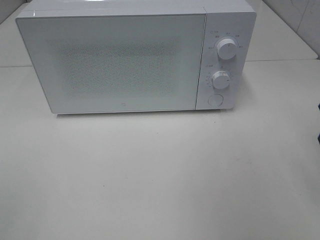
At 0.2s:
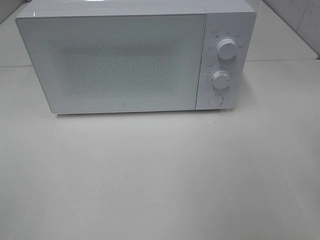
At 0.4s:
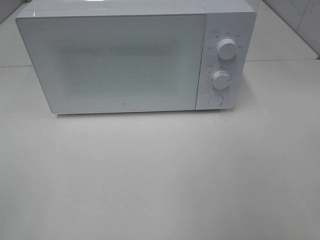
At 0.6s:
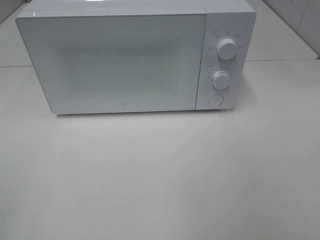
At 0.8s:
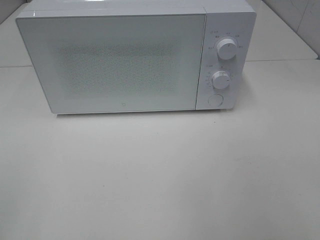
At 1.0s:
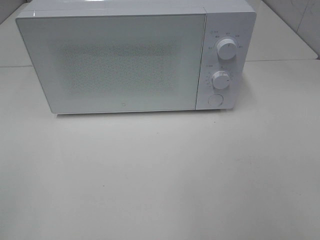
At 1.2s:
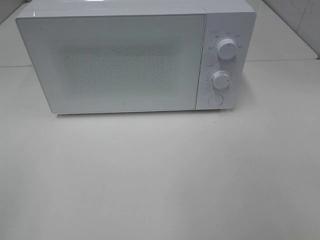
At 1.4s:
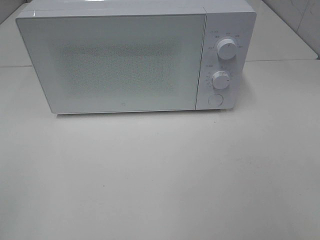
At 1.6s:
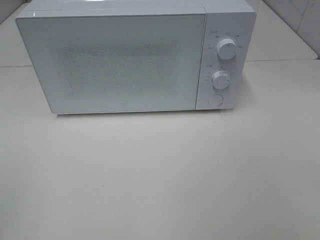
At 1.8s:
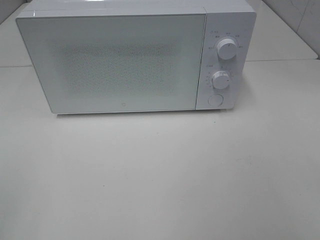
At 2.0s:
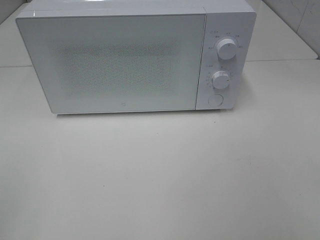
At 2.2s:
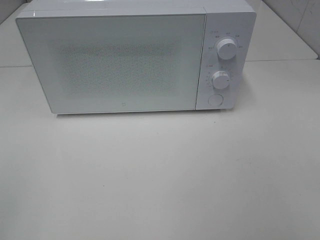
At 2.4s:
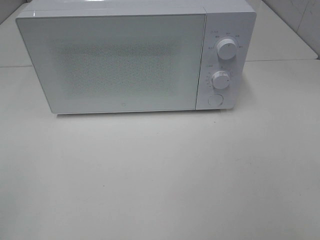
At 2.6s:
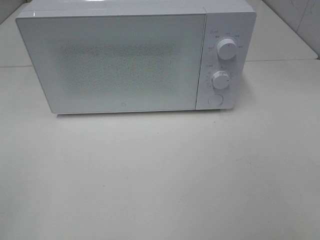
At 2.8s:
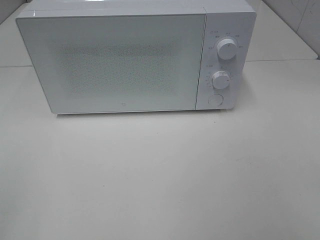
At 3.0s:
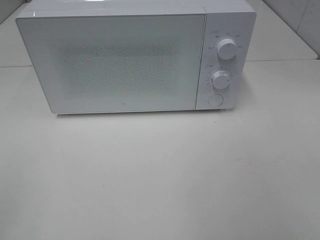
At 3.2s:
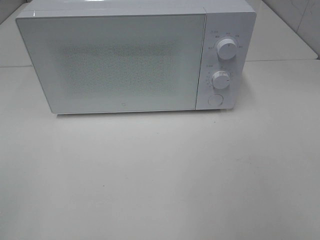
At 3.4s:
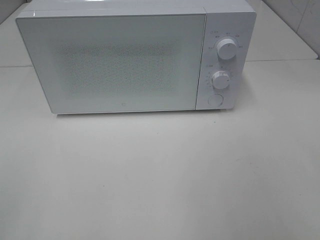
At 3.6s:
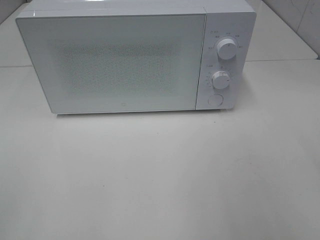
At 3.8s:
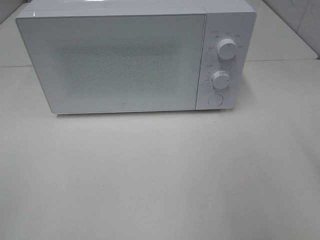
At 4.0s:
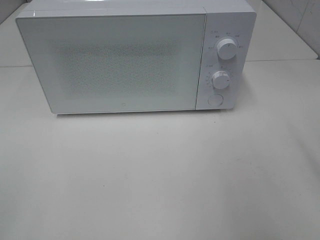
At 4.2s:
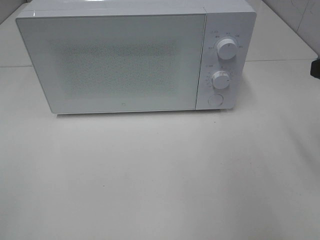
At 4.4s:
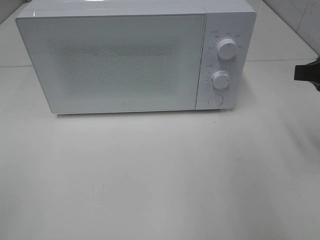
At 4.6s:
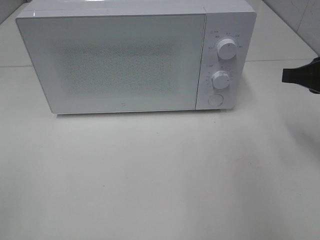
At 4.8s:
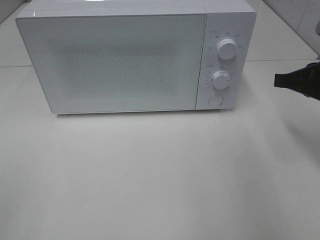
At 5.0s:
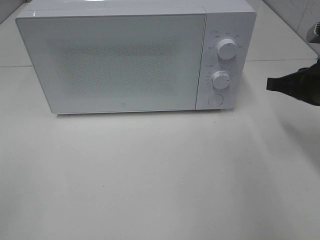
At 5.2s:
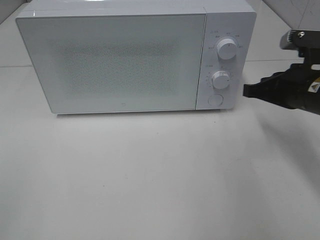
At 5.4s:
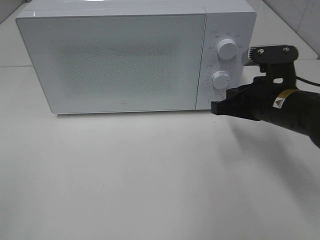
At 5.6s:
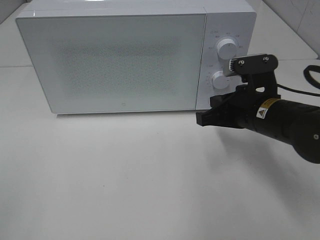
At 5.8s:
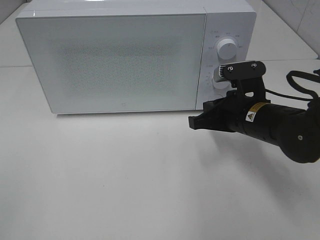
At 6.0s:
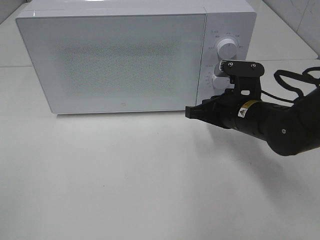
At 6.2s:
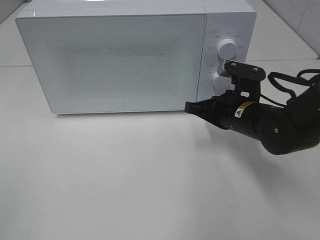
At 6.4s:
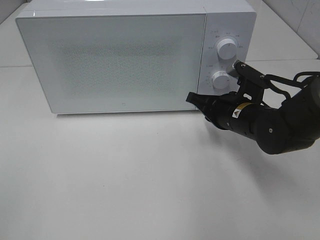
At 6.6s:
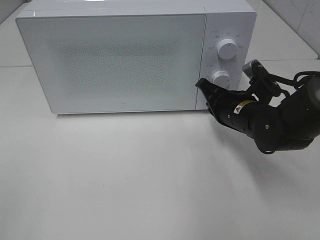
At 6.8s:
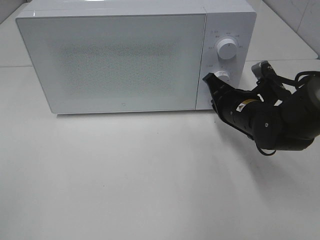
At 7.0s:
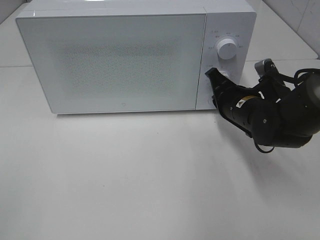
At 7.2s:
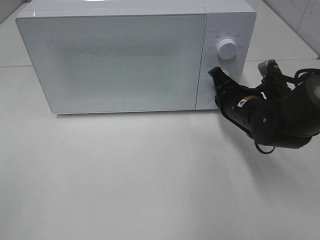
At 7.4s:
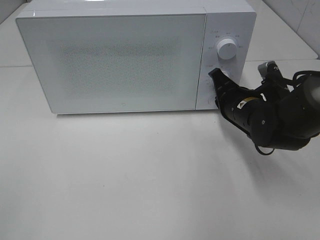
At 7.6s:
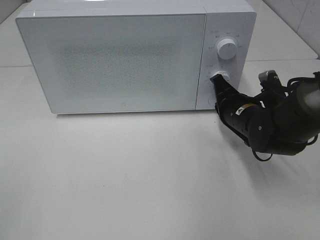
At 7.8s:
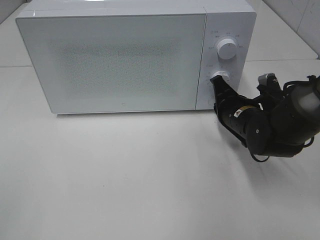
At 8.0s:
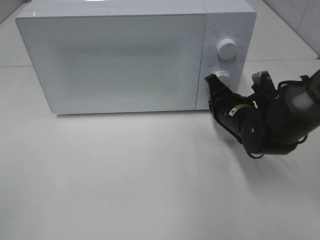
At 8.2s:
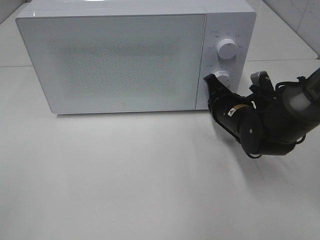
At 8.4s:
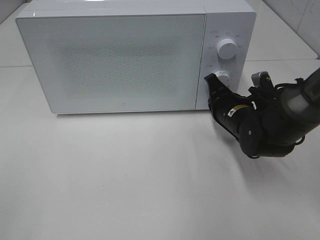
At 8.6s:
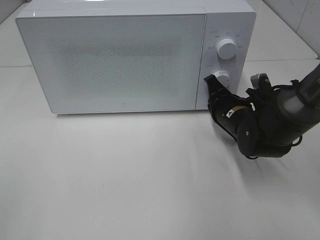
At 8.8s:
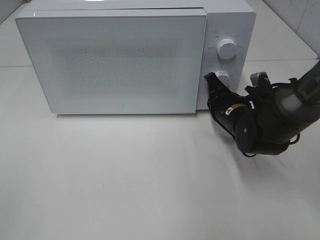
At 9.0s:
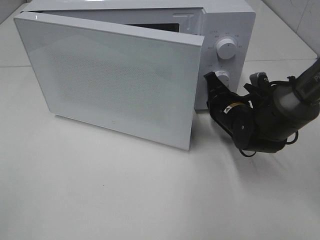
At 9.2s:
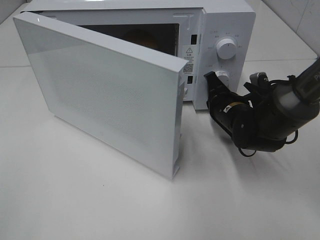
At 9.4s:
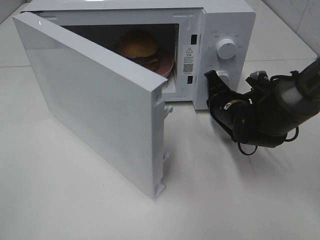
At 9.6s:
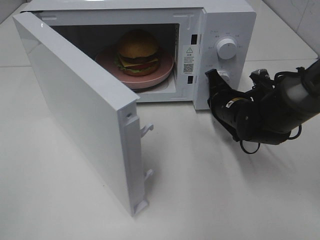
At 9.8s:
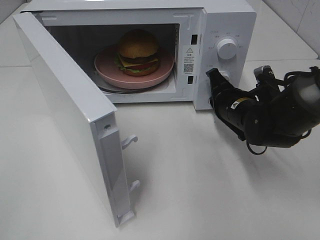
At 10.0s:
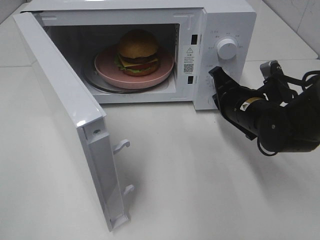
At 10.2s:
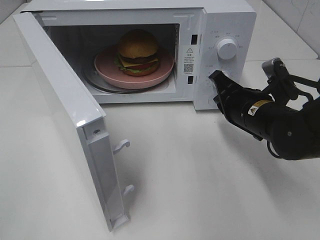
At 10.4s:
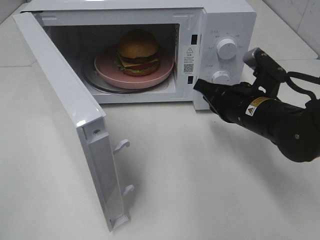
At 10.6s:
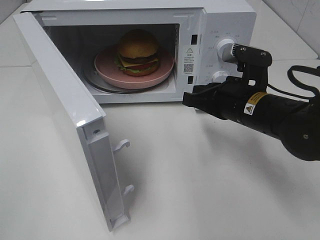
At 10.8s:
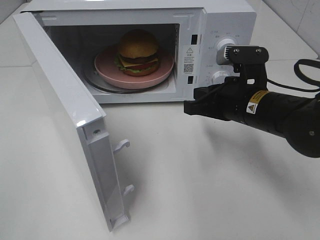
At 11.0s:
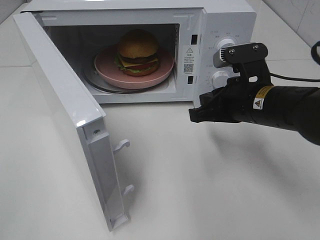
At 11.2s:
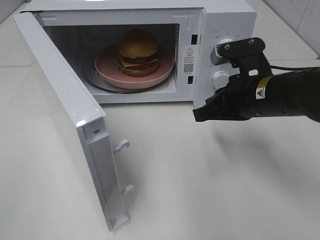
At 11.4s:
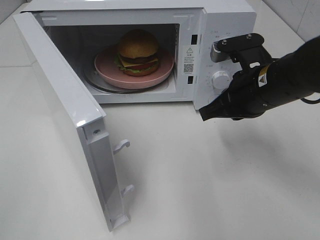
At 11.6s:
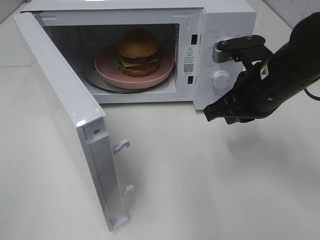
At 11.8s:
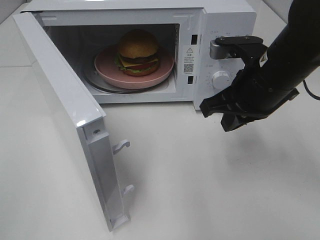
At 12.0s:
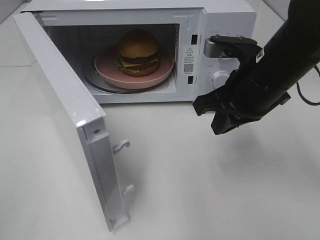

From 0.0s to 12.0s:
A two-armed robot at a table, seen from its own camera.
Task of the whole recording: Heat the burger.
Step, from 0.0s to 9.8s: Right hand: press the switch.
From 3.0s to 4.4s: The right gripper goes roughly 25 cm forward, and closes.
From 4.4s to 6.0s: The right gripper moves downward, to the left and forward, about 20 cm, and closes up.
From 7.6s to 9.0s: The grippers stay close to where they were, moving slightly.
From 9.0s to 10.4s: The right gripper moves backward and upward, approximately 10 cm.
From 10.4s to 12.0s: The right gripper moves upward, roughly 10 cm.

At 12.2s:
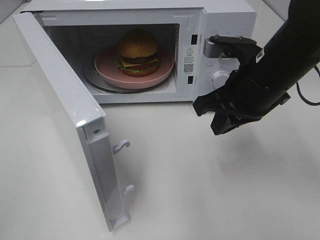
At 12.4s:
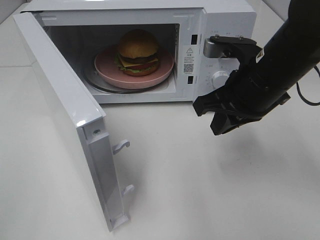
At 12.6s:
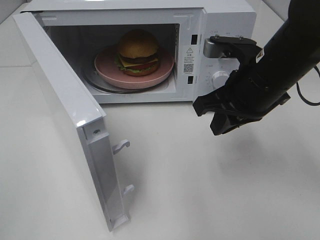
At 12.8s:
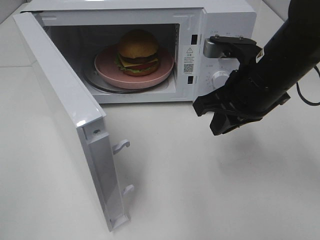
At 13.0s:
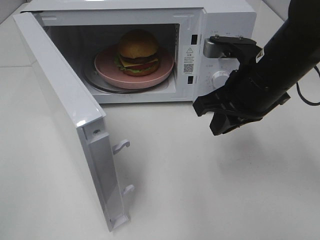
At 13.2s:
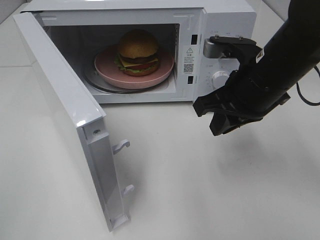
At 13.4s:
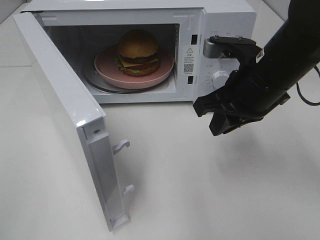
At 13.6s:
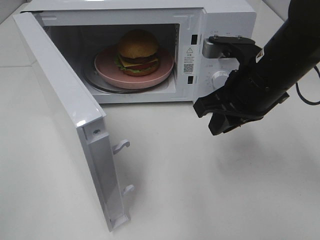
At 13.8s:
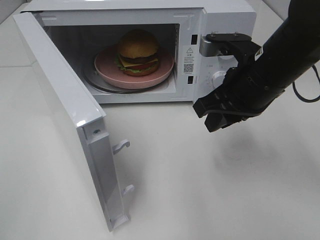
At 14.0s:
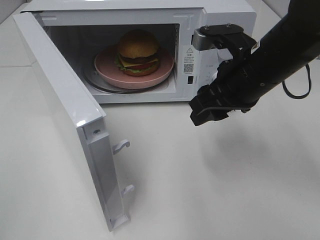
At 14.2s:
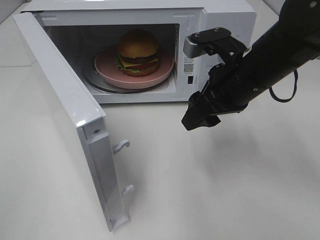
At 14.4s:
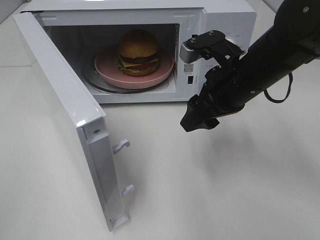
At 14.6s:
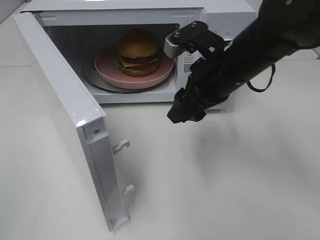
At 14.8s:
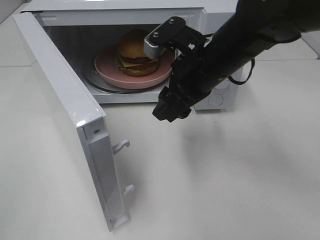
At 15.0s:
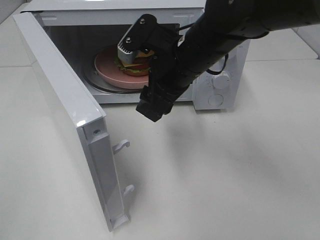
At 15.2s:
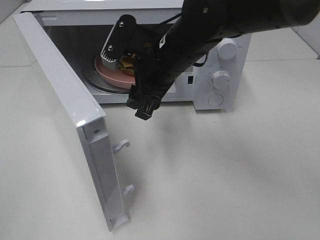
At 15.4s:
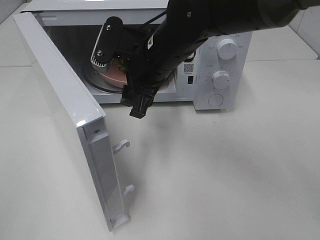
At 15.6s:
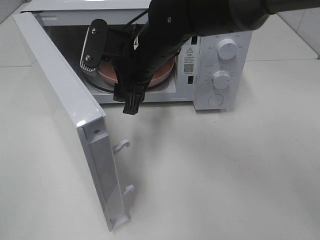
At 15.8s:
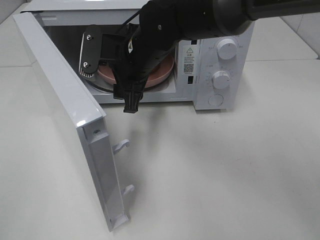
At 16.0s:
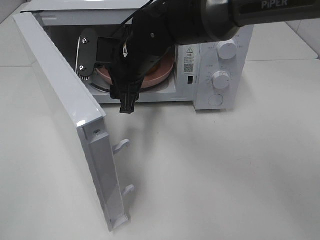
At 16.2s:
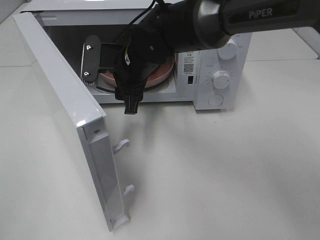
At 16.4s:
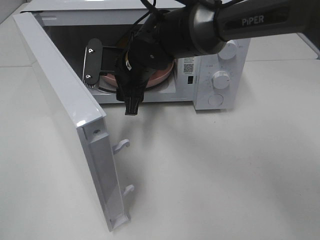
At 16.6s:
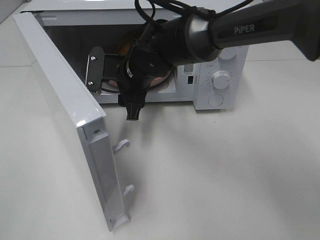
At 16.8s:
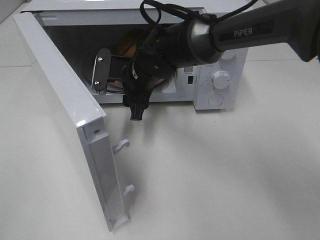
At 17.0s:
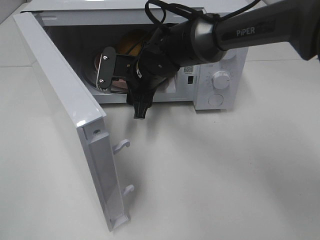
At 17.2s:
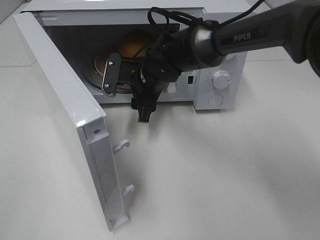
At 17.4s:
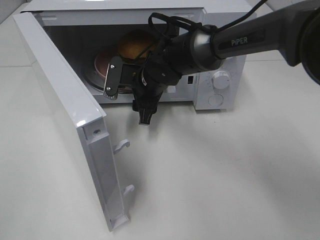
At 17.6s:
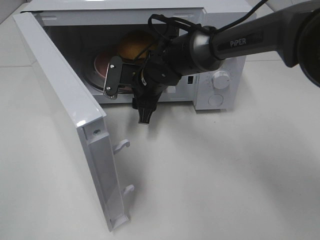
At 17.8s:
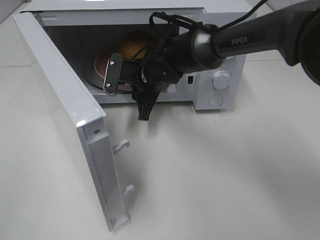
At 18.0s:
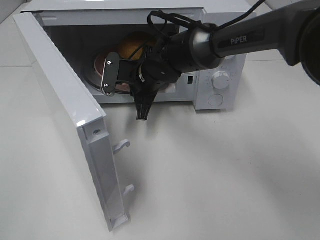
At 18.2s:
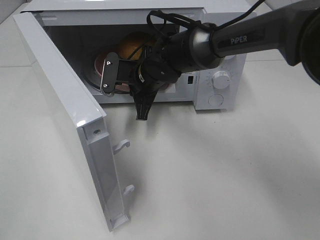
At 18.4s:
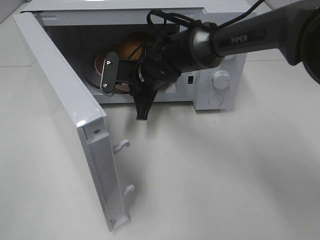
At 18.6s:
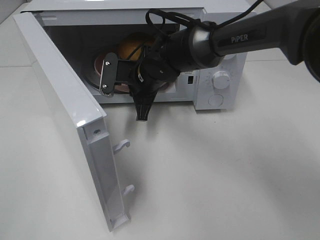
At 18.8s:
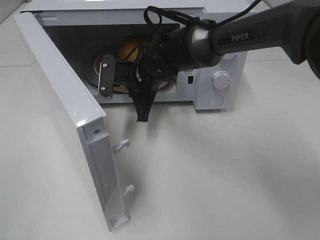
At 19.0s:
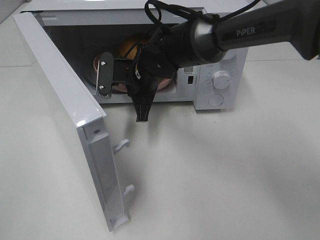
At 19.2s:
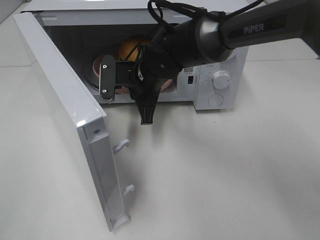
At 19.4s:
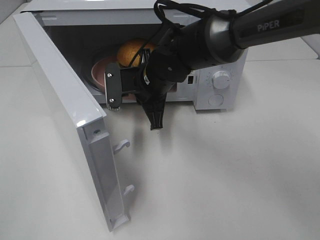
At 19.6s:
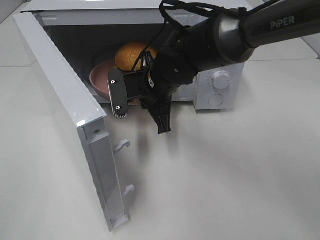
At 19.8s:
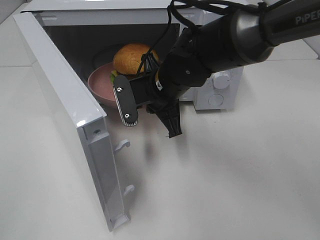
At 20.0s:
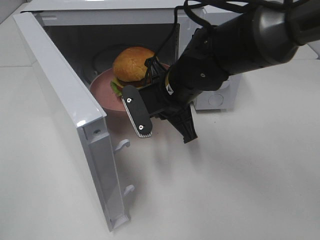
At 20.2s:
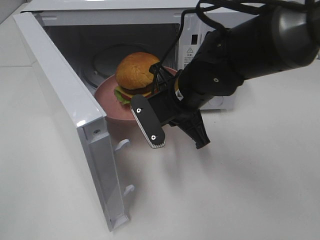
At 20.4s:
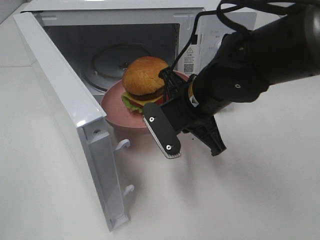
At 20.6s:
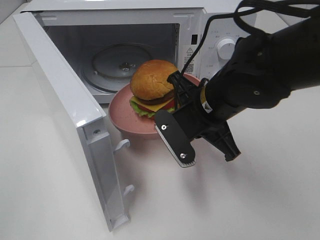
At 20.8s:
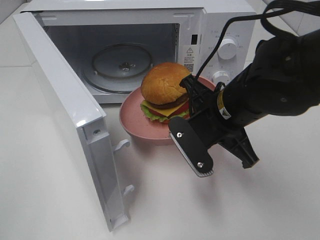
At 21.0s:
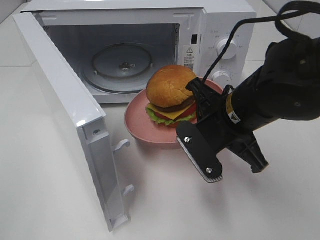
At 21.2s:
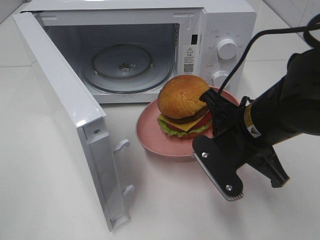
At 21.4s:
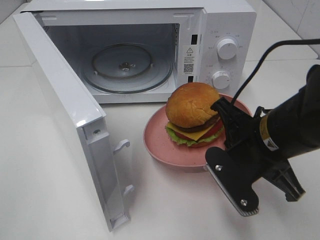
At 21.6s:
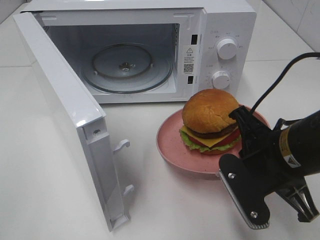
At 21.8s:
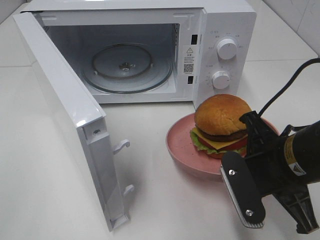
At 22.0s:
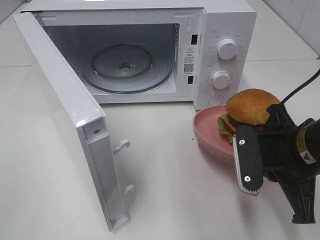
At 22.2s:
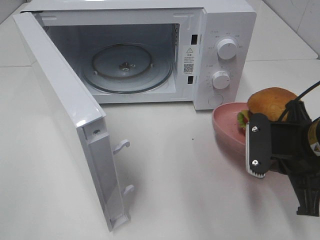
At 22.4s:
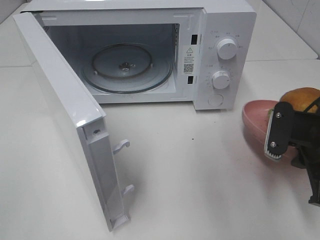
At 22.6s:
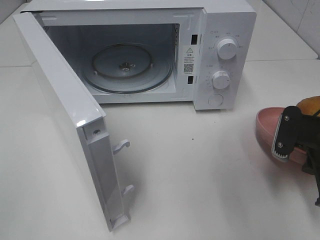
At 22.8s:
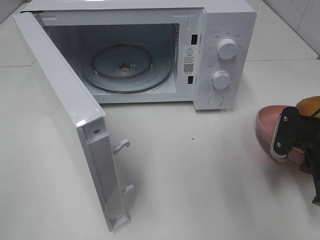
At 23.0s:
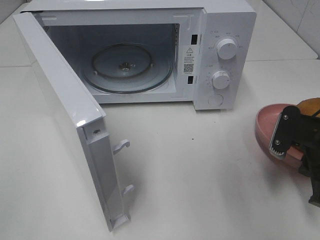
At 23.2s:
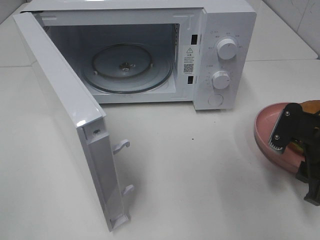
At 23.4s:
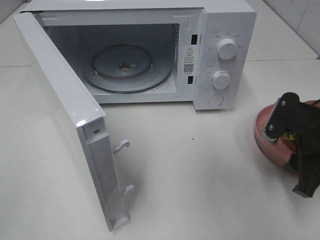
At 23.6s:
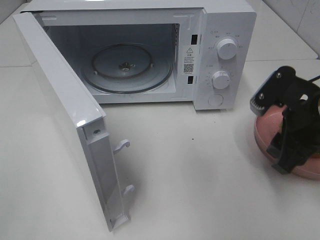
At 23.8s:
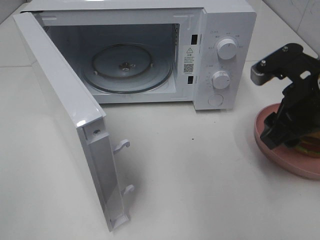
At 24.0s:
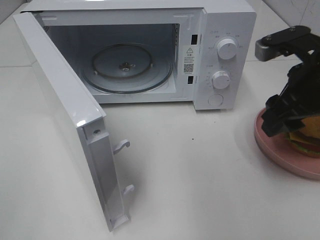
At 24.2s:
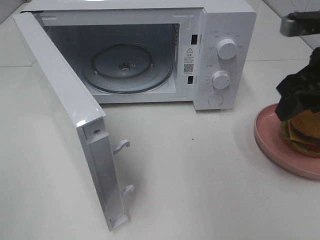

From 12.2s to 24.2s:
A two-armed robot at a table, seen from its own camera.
Task of the whole recording: Heat the burger.
Step, from 12.2s to 18.2s: Right hand: grab the plate with the hamburger.
Step, from 18.4s to 23.0s: Right hand: place the plate on the table.
From 12.2s to 13.8s: The grippers move only a little.
From 13.8s to 15.2s: The right gripper heads to the left, covering roughly 10 cm, and opens its fingers.
From 15.2s to 16.6s: The right gripper moves downward, to the left and forward, about 10 cm.
From 16.6s to 18.2s: The right gripper closes up.
From 18.2s to 19.8s: The right gripper goes about 5 cm backward.
From 19.8s to 21.2s: The right gripper moves backward and to the right, about 15 cm.
From 21.2s to 22.6s: The right gripper shifts about 15 cm to the right.
From 22.6s to 24.2s: The right gripper moves upward, approximately 10 cm, and opens up.
